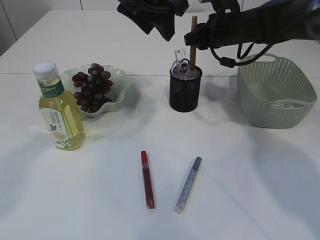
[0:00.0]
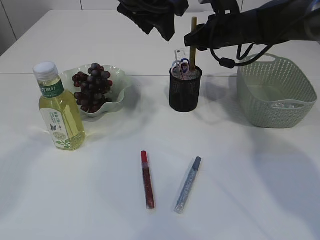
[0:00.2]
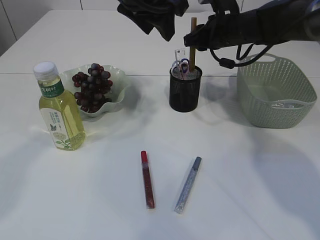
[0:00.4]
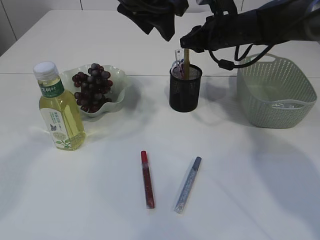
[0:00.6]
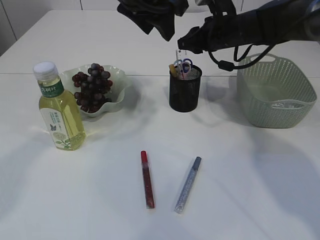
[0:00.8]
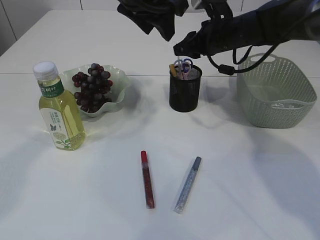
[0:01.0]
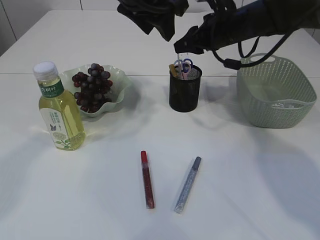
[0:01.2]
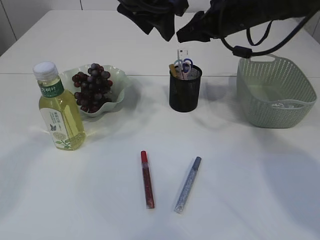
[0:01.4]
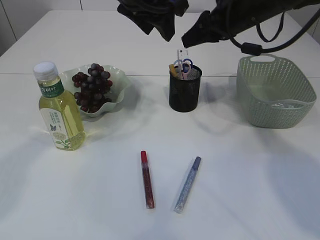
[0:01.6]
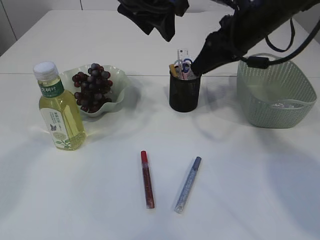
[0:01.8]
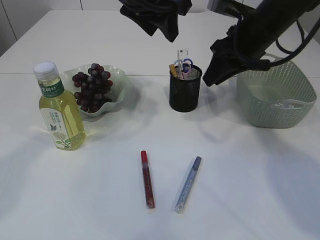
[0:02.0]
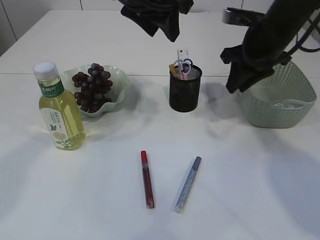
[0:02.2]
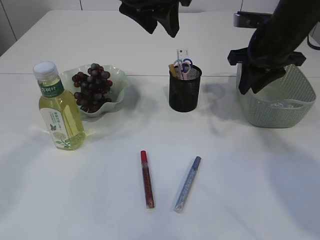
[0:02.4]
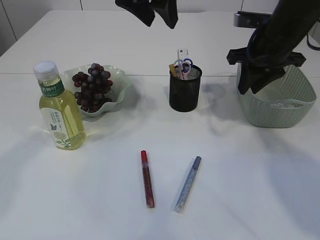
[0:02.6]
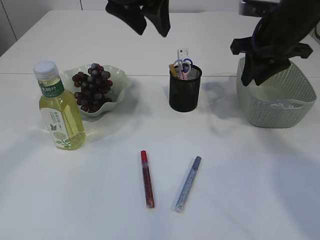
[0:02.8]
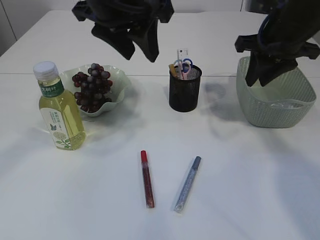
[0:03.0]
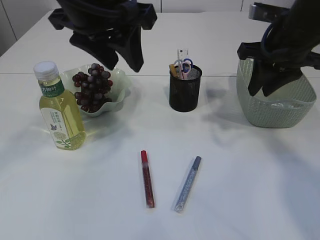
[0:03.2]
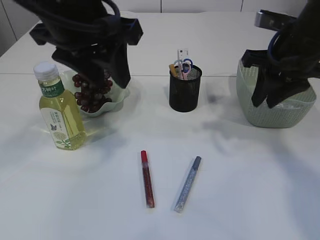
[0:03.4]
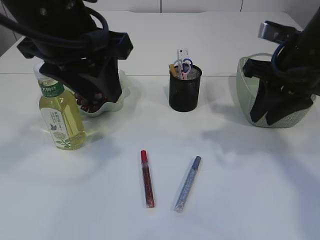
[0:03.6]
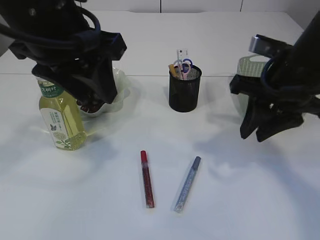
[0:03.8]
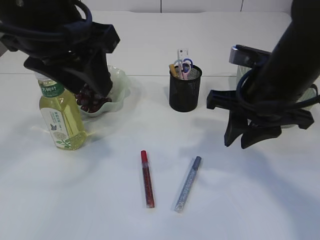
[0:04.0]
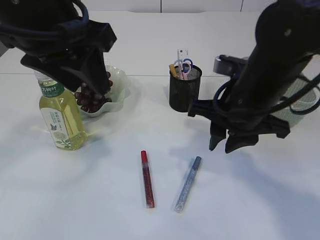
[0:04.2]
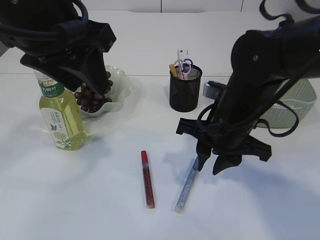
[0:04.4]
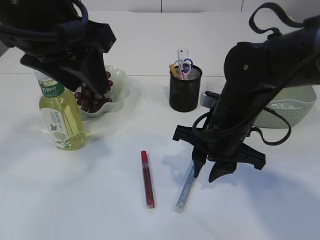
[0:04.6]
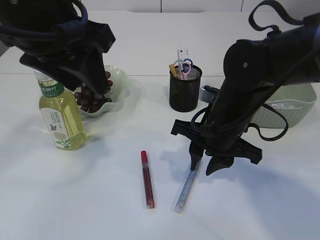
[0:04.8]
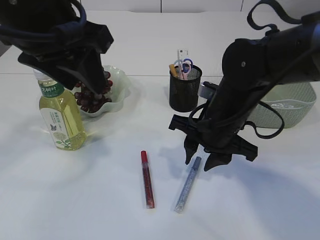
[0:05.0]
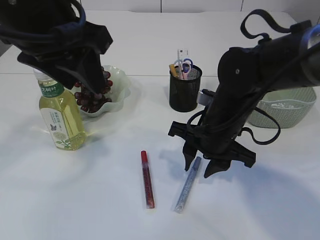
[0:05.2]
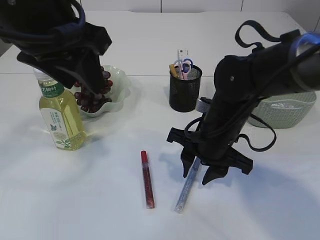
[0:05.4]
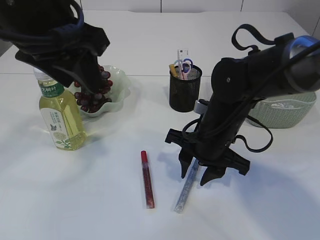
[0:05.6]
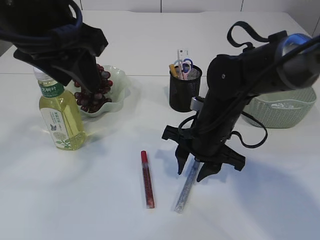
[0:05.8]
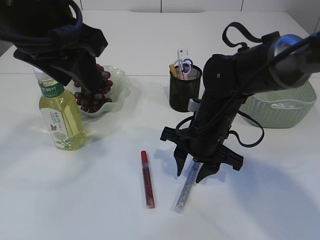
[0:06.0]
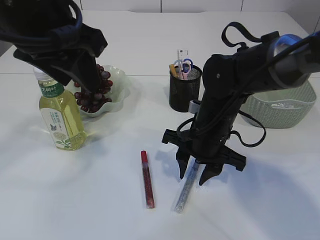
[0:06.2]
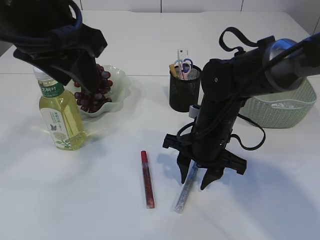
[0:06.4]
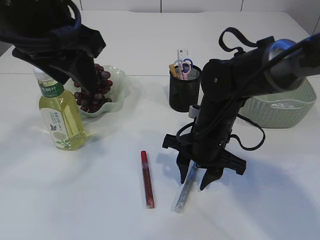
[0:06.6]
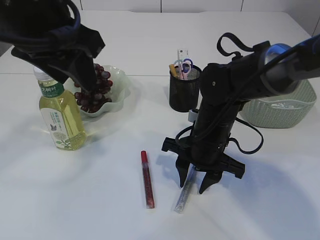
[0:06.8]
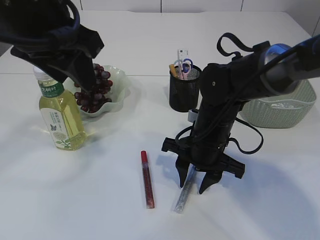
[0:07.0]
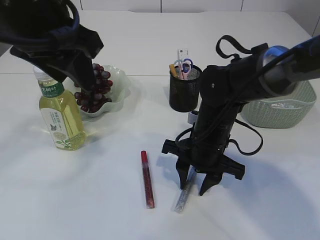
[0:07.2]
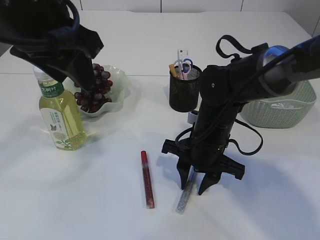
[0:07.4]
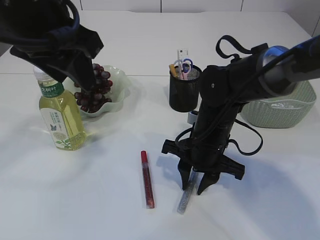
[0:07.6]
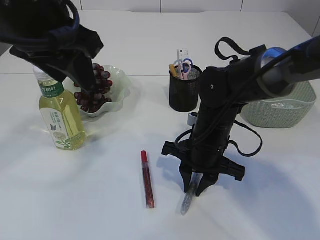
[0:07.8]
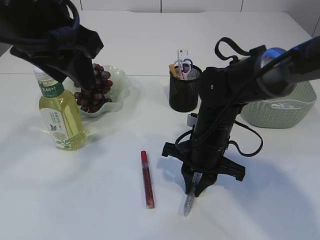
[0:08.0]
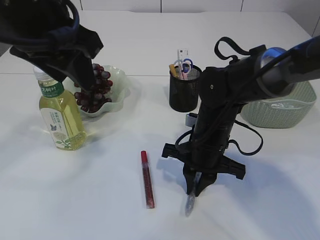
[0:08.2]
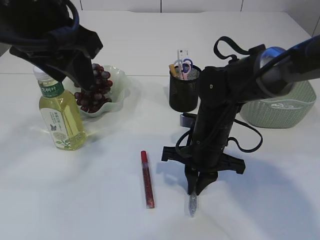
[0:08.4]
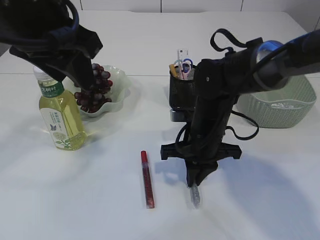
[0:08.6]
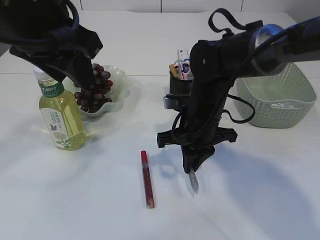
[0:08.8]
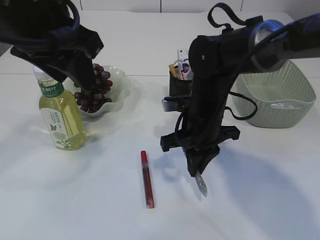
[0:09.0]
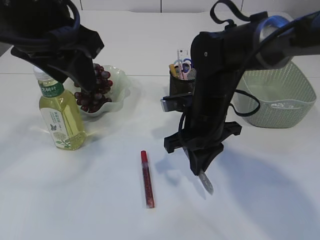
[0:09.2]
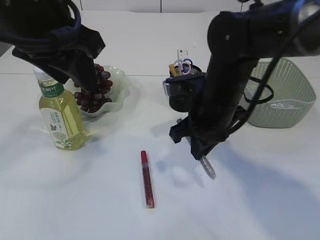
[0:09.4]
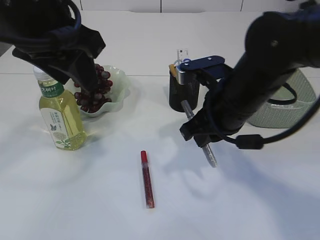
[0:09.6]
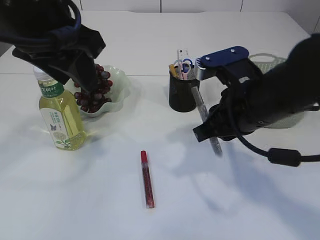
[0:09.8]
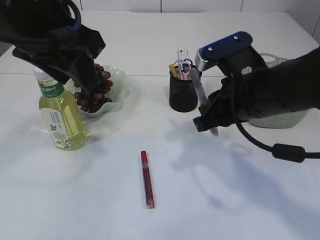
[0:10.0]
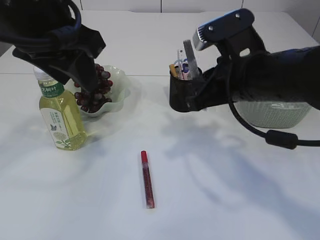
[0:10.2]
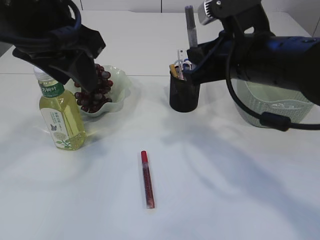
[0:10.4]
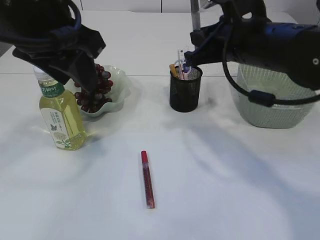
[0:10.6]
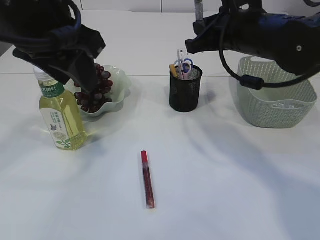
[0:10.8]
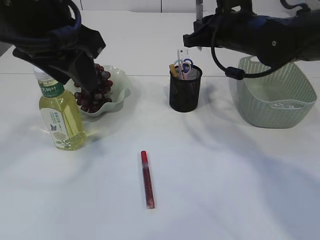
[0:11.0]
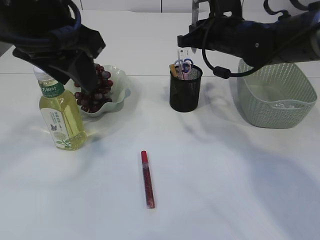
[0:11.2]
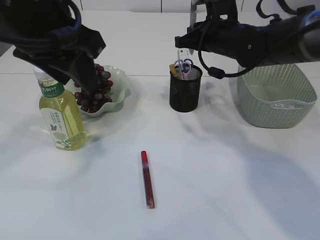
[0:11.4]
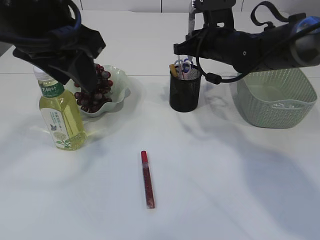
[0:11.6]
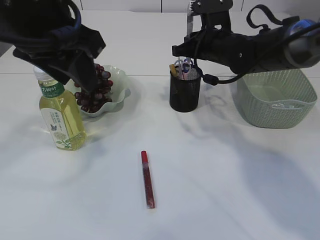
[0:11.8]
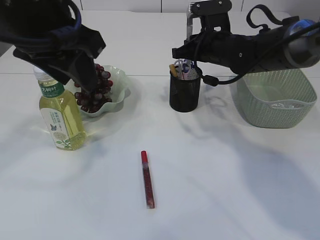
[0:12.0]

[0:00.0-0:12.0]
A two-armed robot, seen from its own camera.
0:00.0 to 0:01.6: The right gripper is displaced backward and upward by approximately 10 cm.
0:01.6 to 0:03.0: The right gripper shifts approximately 5 cm to the right, while the left gripper changes place by some 5 cm.
0:03.0 to 0:04.4: The left gripper shifts some 10 cm backward and to the left. Meanwhile the right gripper shifts about 15 cm to the left, downward and backward.
0:04.4 to 0:06.0: The right gripper goes approximately 5 cm downward.
0:06.0 to 0:07.6: There are only small adjustments of the grippers.
0:07.6 to 0:09.0: The right gripper closes its fingers.
0:09.0 to 0:10.4: The right gripper shifts some 10 cm upward.
0:10.4 to 0:12.0: The right gripper heads forward, covering approximately 15 cm.

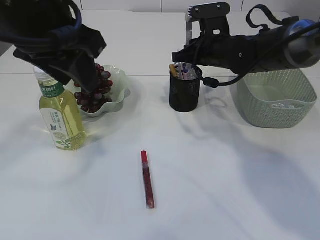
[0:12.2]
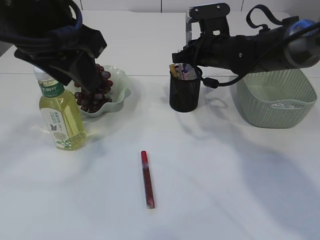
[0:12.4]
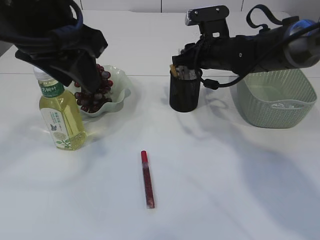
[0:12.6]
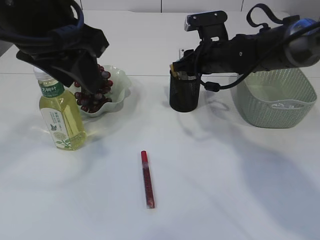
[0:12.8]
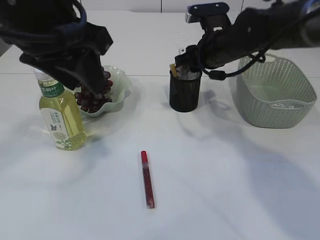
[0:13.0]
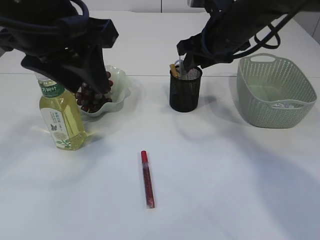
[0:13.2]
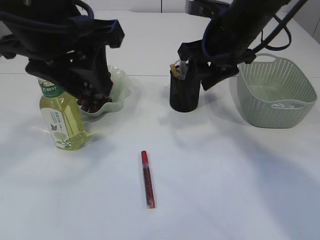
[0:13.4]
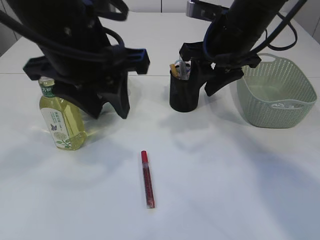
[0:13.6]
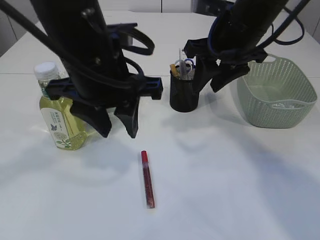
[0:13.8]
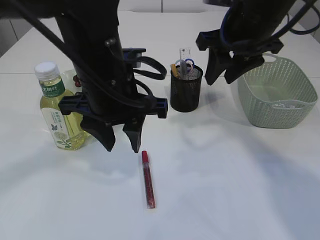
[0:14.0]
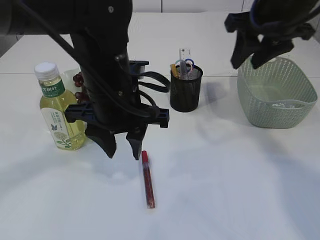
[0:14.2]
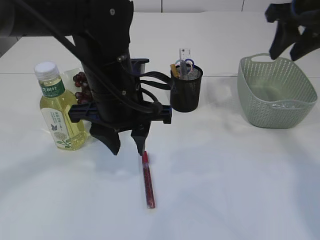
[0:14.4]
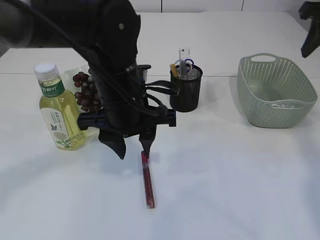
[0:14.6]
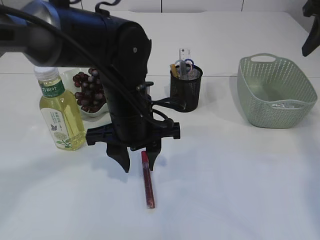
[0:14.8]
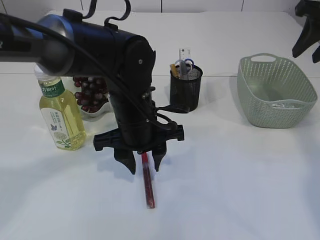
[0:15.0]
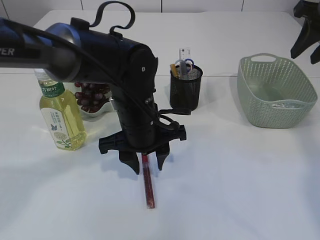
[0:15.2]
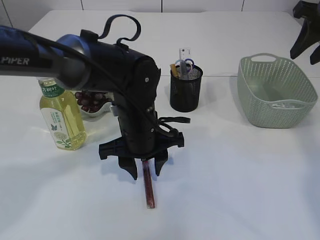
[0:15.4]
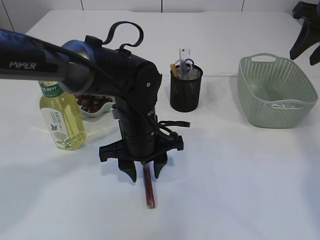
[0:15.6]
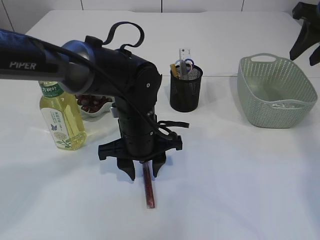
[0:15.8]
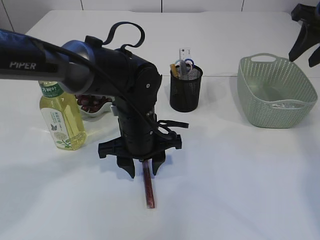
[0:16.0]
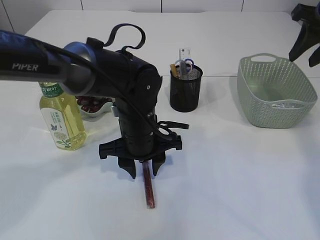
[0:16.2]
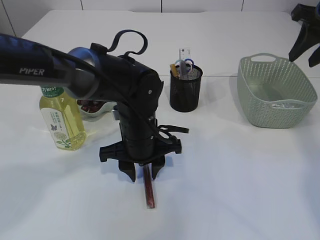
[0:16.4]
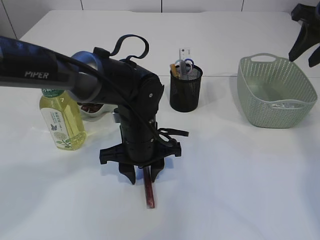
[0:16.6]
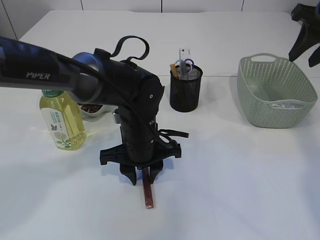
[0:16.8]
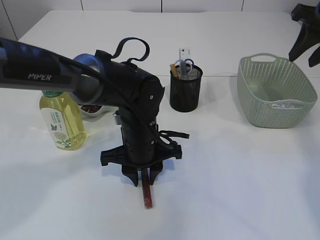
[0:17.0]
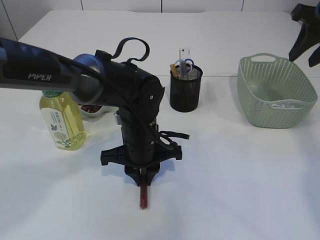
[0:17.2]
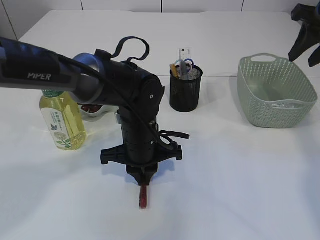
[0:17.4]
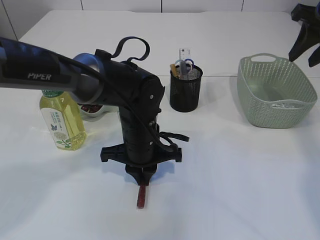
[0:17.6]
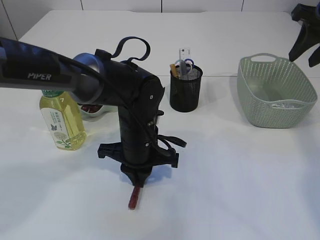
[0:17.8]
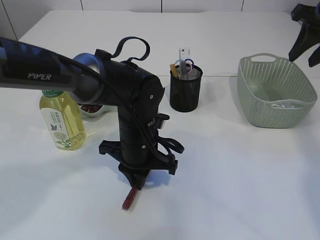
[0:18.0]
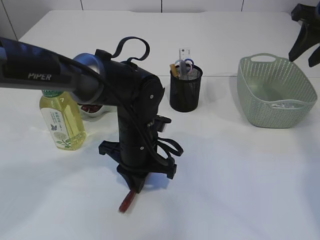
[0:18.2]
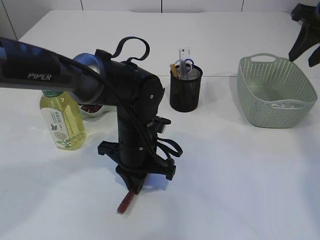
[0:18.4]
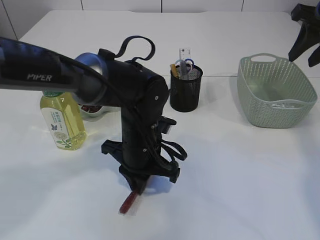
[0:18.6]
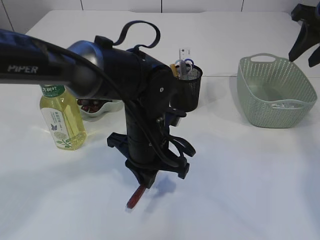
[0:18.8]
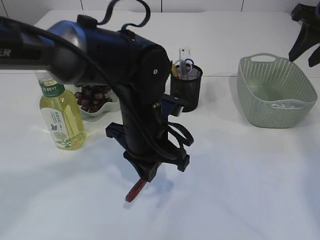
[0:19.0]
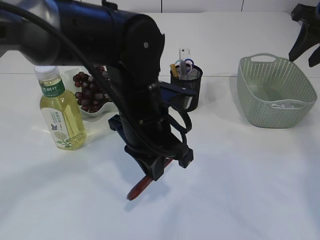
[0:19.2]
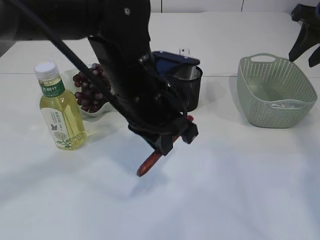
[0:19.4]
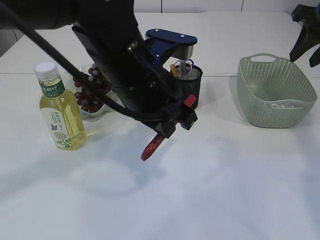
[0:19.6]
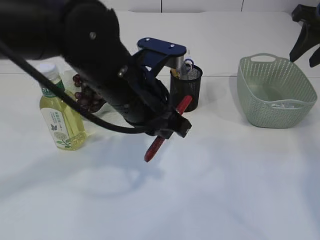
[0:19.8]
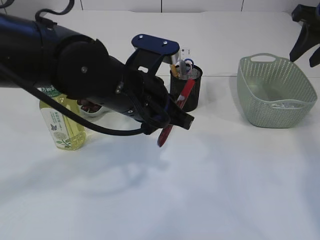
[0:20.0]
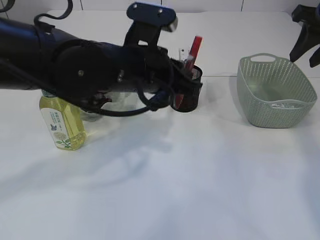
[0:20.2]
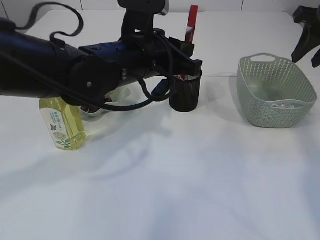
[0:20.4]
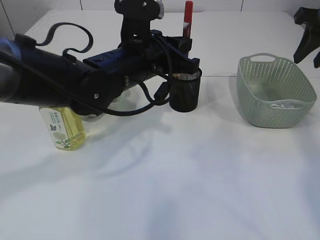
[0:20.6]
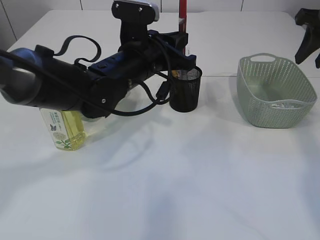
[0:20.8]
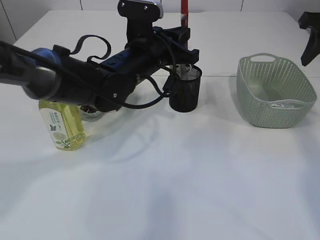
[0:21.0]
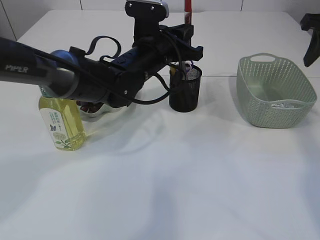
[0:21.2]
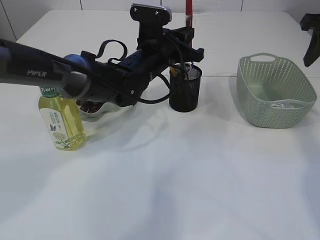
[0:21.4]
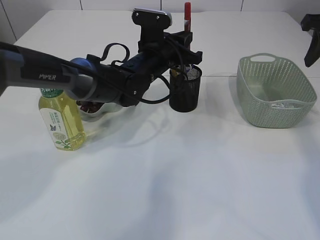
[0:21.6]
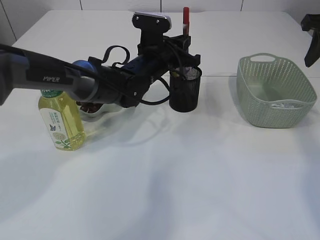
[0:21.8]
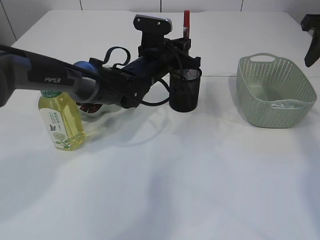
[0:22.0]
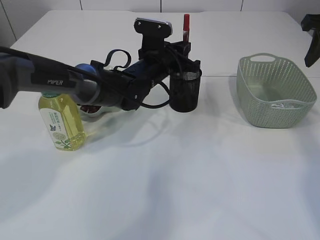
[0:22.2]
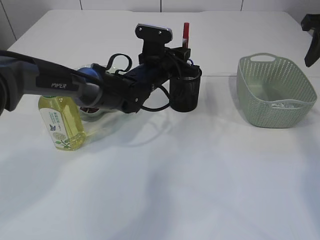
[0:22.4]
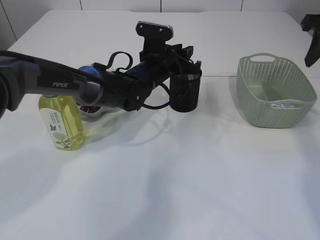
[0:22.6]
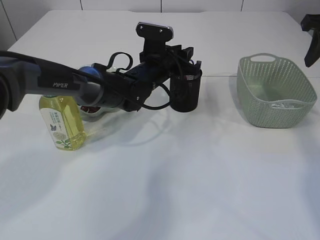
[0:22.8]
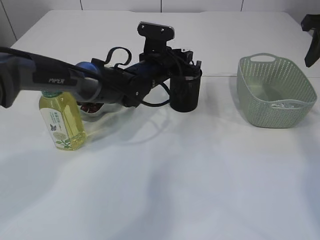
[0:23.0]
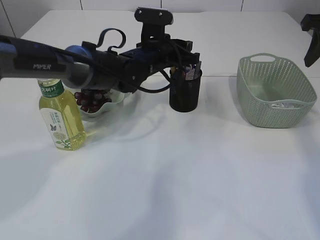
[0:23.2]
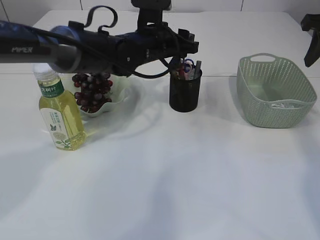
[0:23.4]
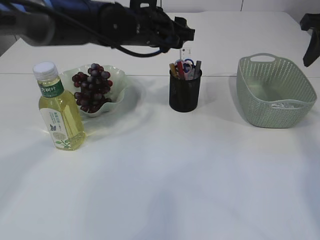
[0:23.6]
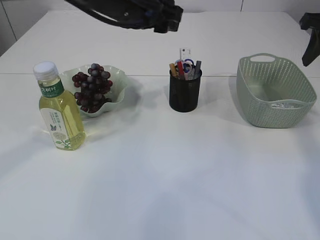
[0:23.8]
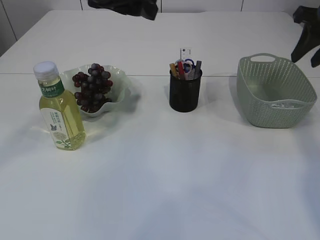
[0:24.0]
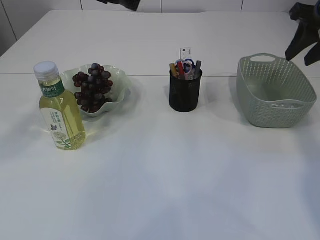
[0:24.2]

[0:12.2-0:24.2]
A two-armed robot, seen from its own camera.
0:12.2 to 0:13.8: The left gripper shifts about 10 cm downward and to the right. Meanwhile the right gripper goes approximately 15 cm upward and backward, and opens.
0:13.8 to 0:15.2: The left gripper travels downward by roughly 15 cm. The right gripper shifts approximately 15 cm to the right.
0:15.2 to 0:16.6: There are only small adjustments of the grippers.
0:16.6 to 0:18.2: The left gripper closes.
0:18.2 to 0:19.8: The left gripper goes approximately 15 cm upward.
0:19.8 to 0:21.2: The left gripper heads forward, covering some 15 cm.
0:21.2 to 0:22.6: The left gripper heads downward and forward, covering about 5 cm, and opens.
0:22.6 to 0:24.2: The left gripper heads upward and backward, covering some 25 cm, and opens its fingers.
